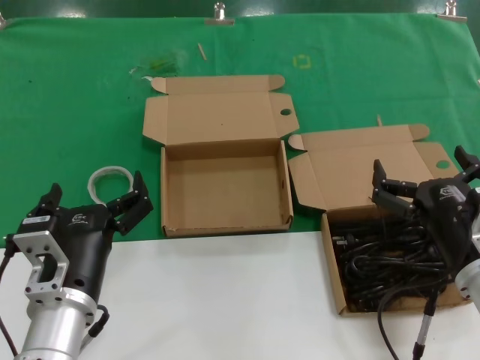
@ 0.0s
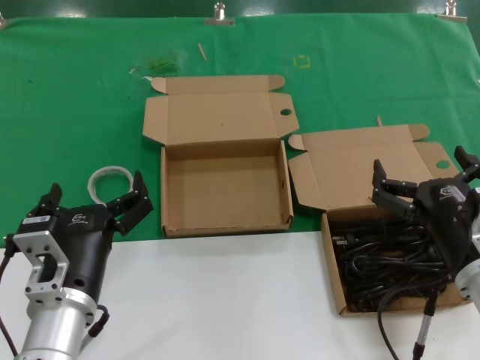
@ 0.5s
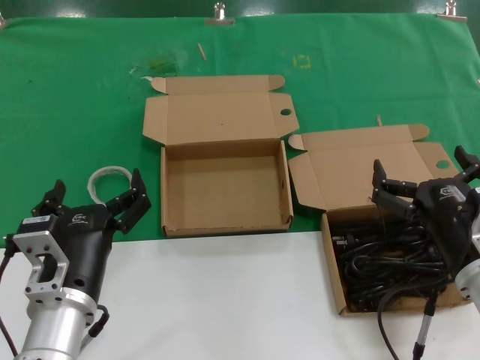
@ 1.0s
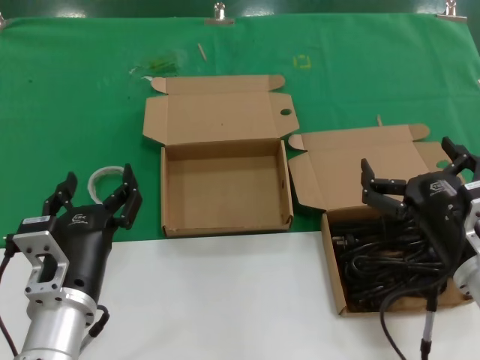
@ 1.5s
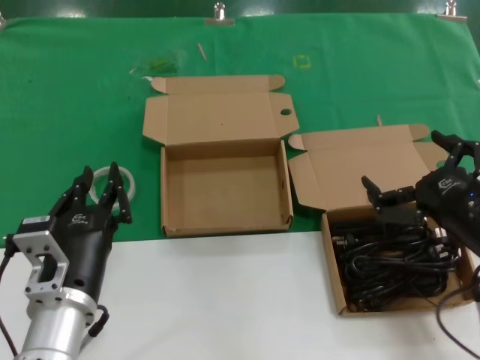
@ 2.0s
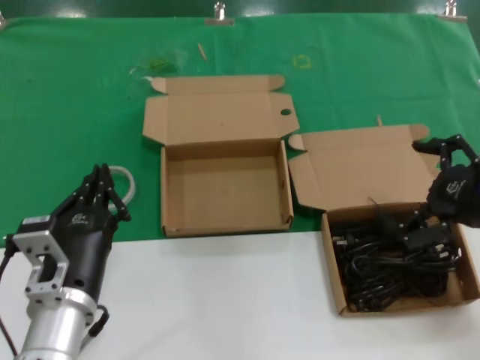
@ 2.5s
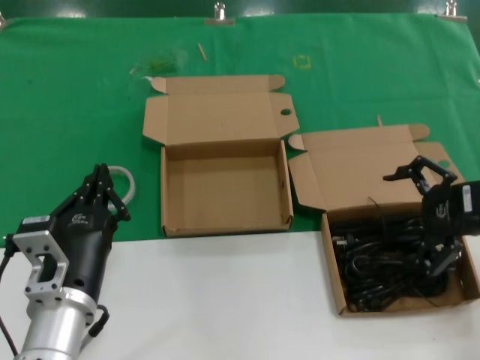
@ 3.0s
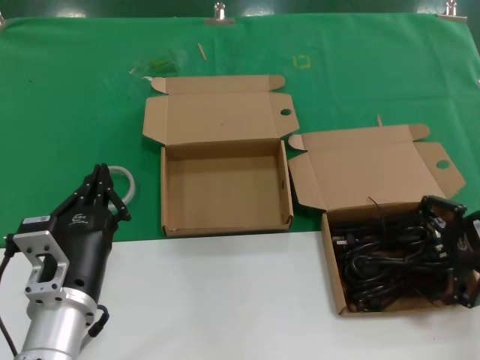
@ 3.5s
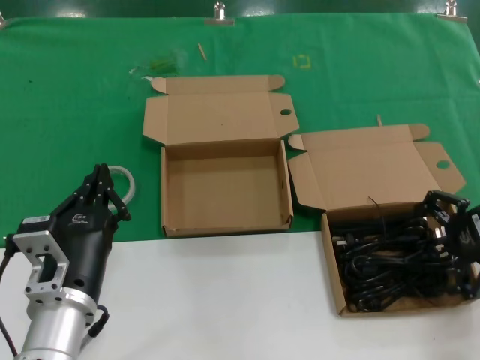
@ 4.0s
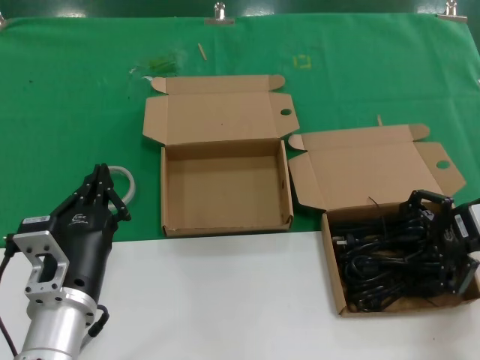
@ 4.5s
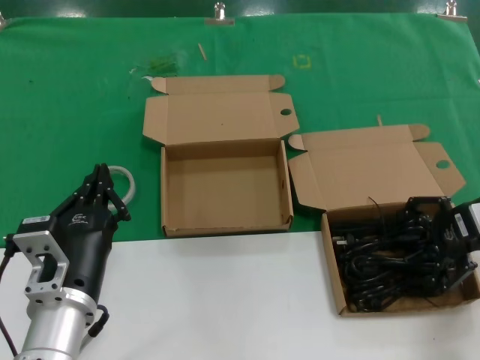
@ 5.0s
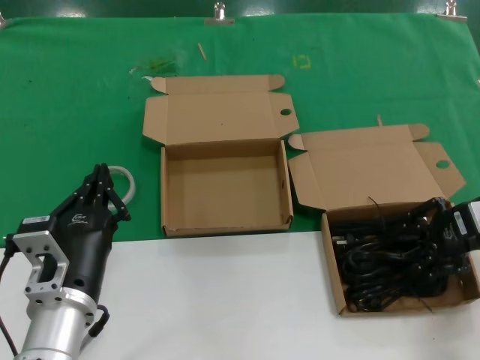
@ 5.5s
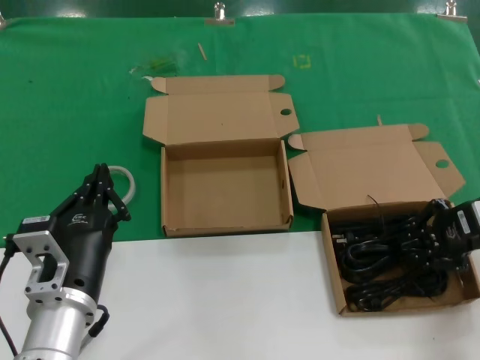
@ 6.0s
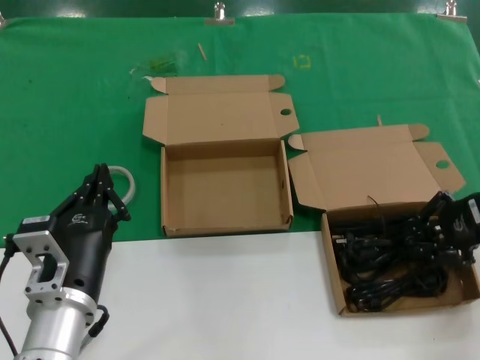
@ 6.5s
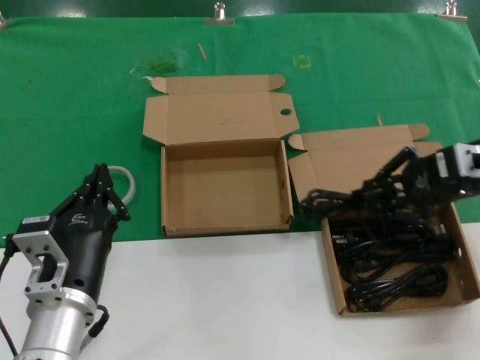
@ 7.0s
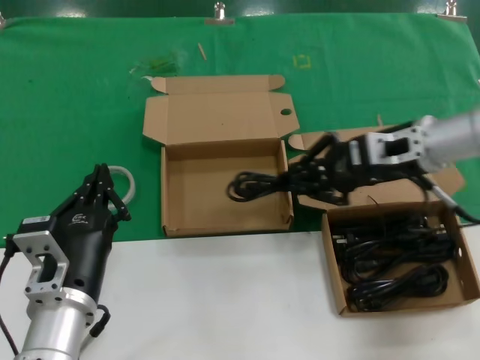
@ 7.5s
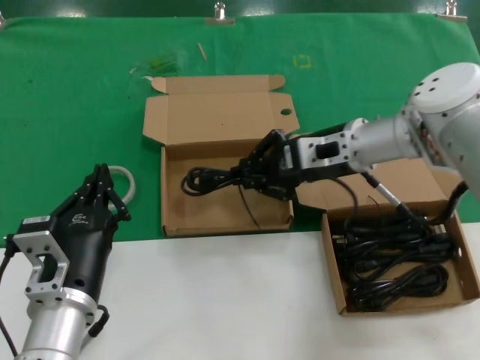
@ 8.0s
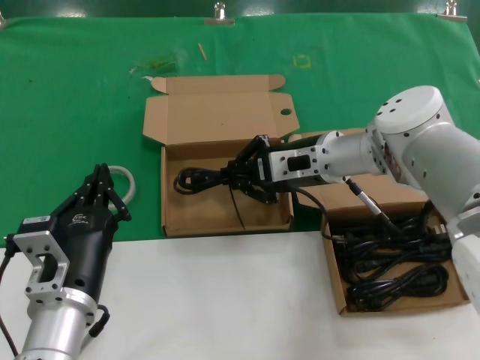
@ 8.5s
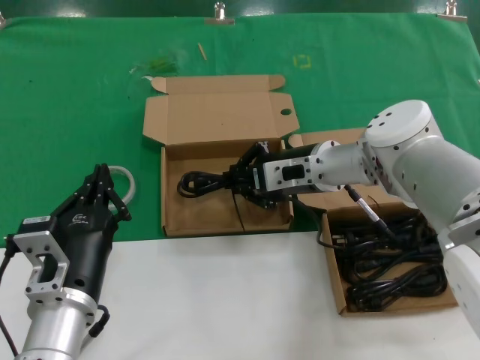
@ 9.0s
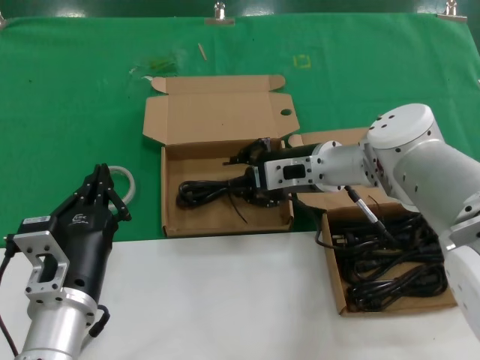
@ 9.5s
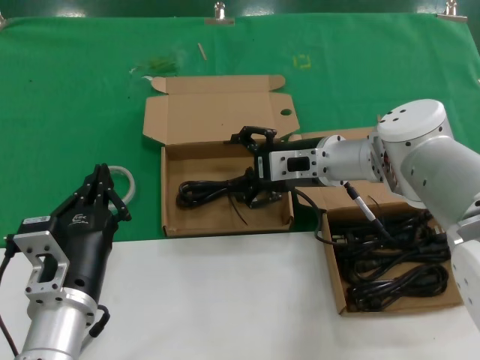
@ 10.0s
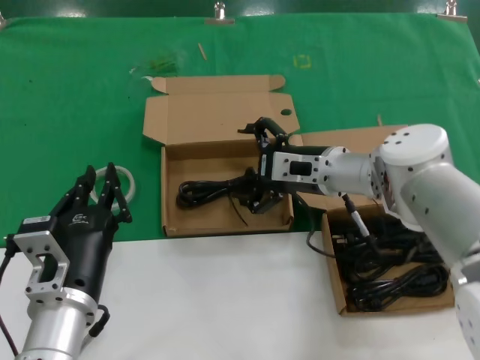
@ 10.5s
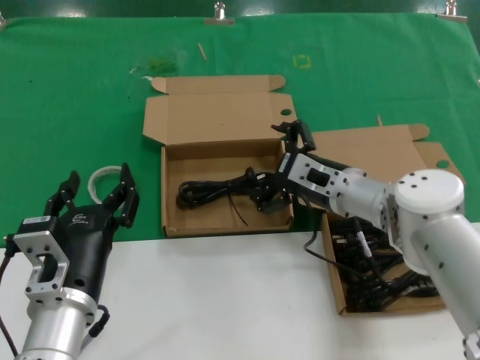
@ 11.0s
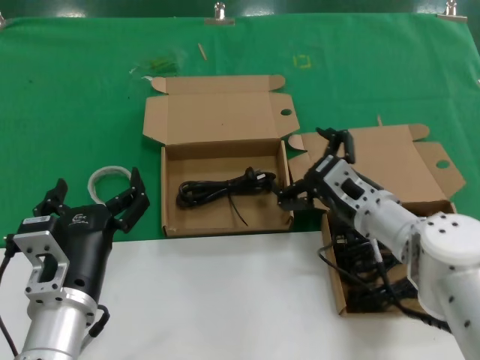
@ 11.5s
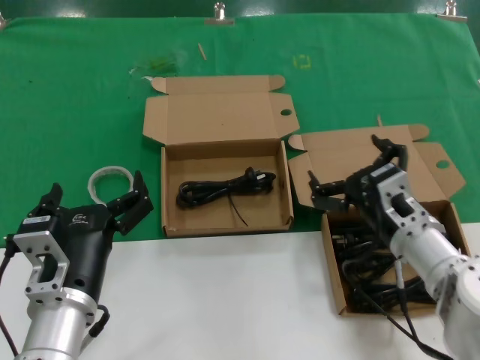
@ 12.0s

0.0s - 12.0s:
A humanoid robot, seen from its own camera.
Task of the whole recording: take the parts from the box containing them and put them into an empty box.
Step, 0.0s - 6.0s: Grasp the data cable.
Step, 6.5s - 9.0s: Place the data cable in the another box.
0.0s - 2.0s: The right hand moves approximately 5 cm.
2.0s - 4.0s: The right hand is displaced forward and to the right by about 15 cm.
4.0s - 6.0s: There are only small adjustments of the hands.
6.0s - 8.0s: The right hand shifts roughly 20 cm to the left and forward.
8.0s - 10.0s: The right hand shifts by approximately 5 cm.
10.0s - 12.0s: The right hand travels backward, downward and to the right by approximately 15 cm.

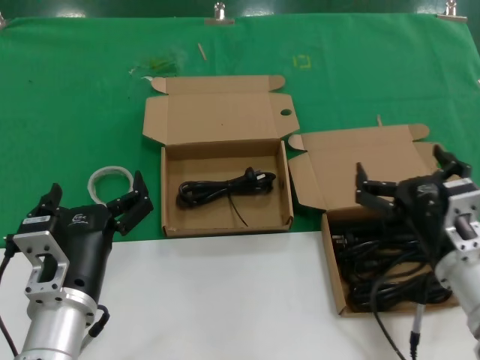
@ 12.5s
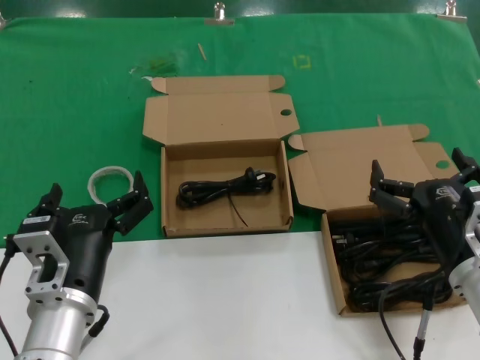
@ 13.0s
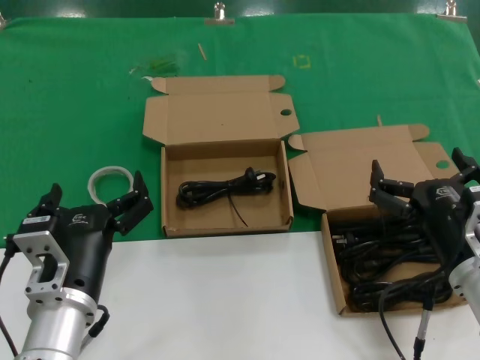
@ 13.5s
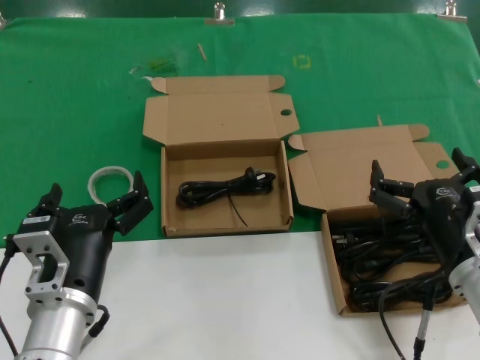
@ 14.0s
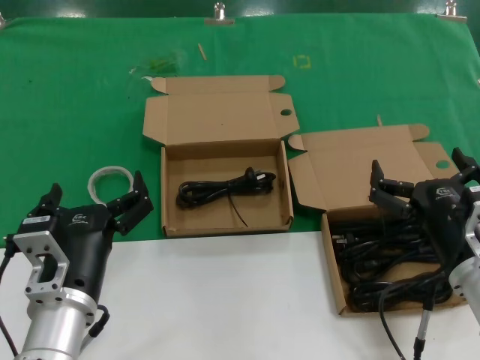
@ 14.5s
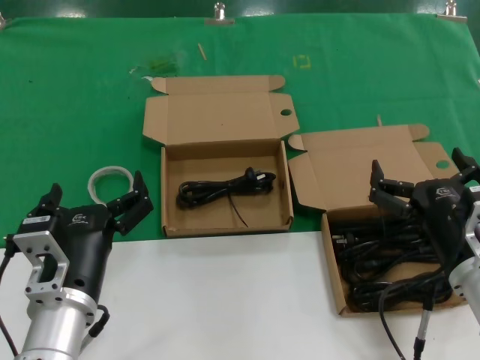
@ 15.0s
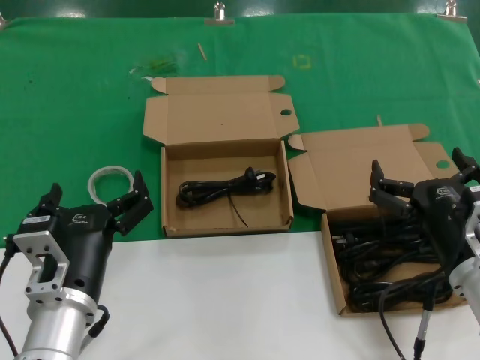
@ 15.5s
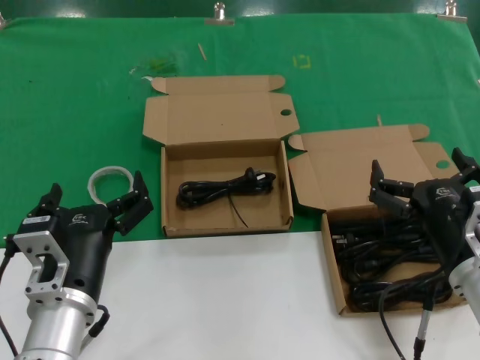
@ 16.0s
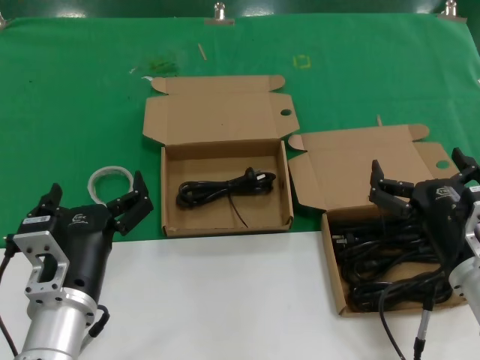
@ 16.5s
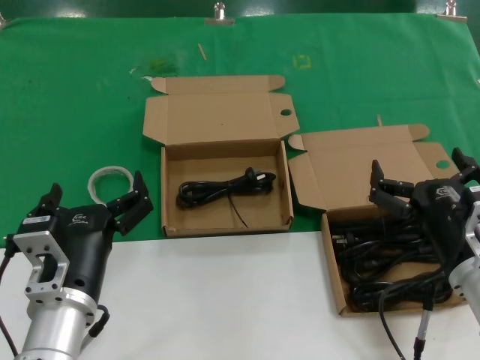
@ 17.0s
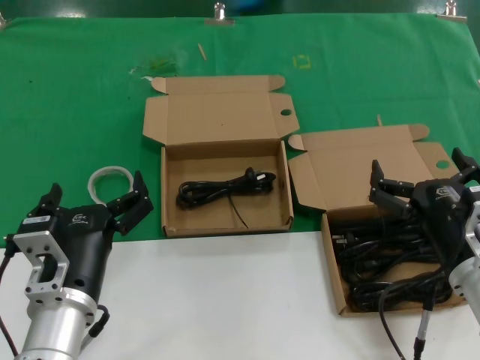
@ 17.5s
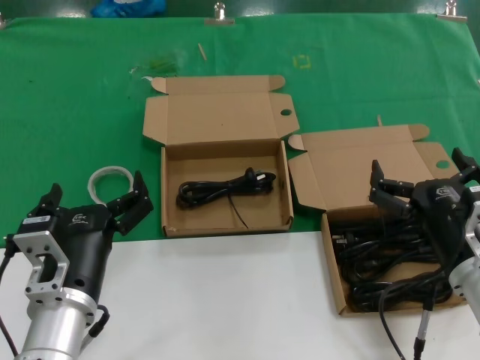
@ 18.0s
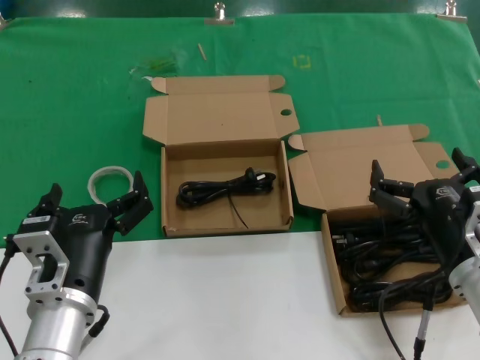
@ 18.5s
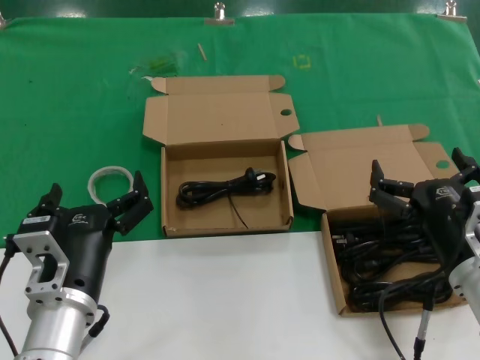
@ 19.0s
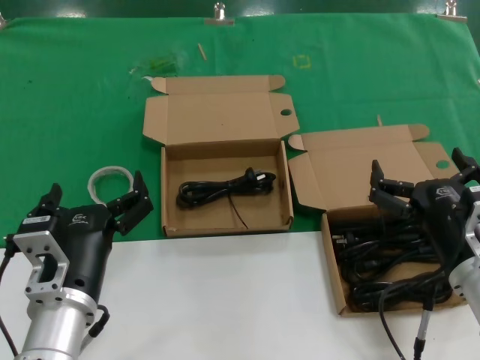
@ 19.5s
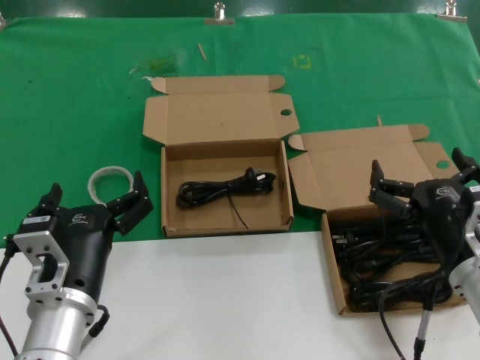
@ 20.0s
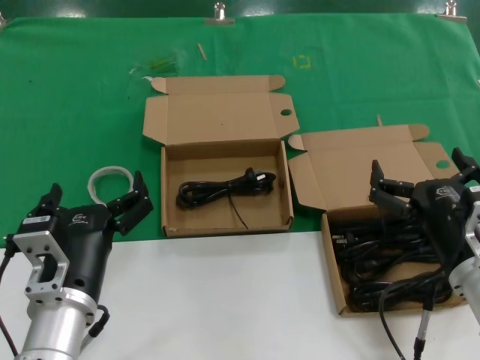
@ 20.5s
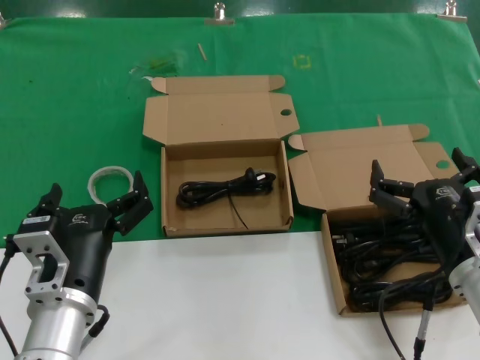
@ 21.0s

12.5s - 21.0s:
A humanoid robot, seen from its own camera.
Task of the whole recording: take the parts from the box containing them and put them into an empty box.
12.5s - 14.5s: The hands make only small movements.
14.5s - 21.0s: Both hands stay put.

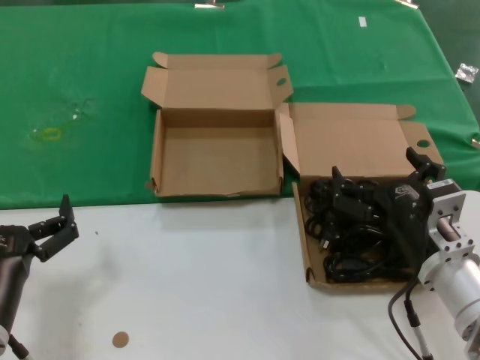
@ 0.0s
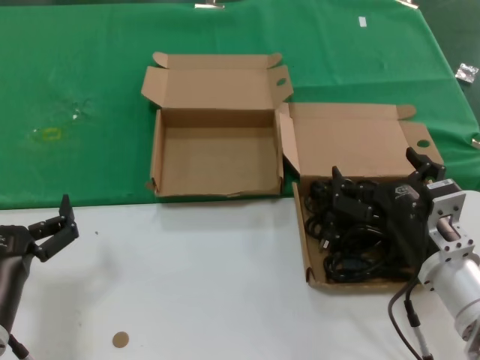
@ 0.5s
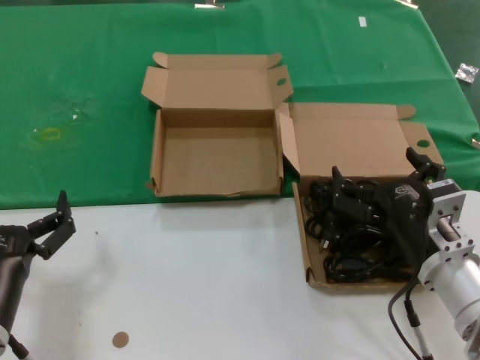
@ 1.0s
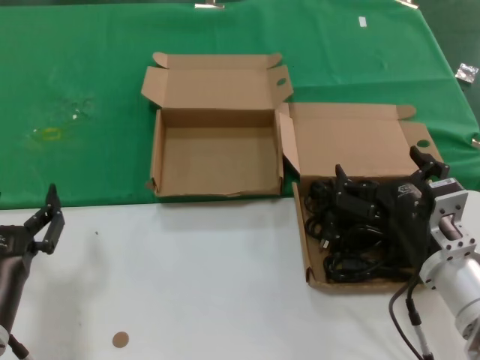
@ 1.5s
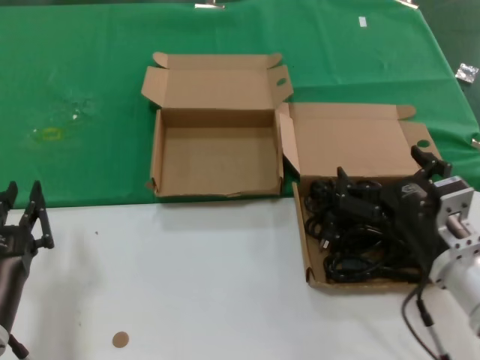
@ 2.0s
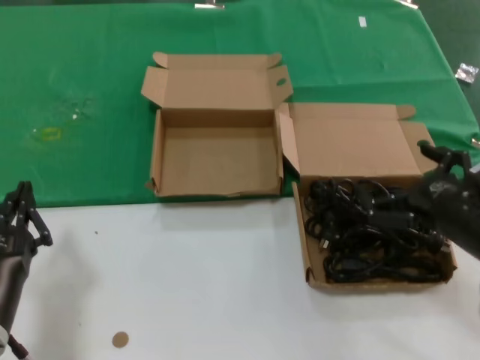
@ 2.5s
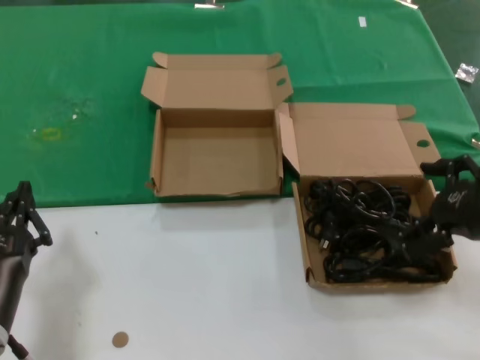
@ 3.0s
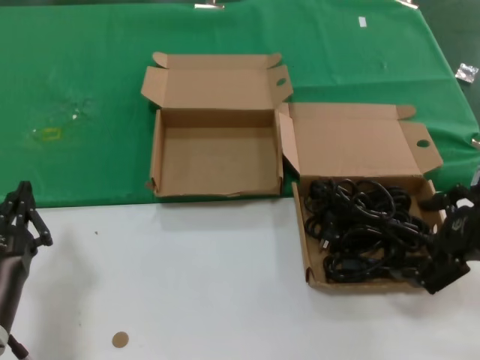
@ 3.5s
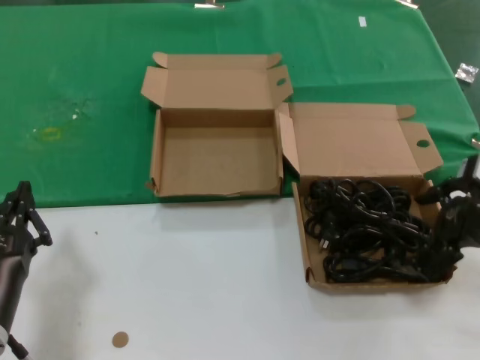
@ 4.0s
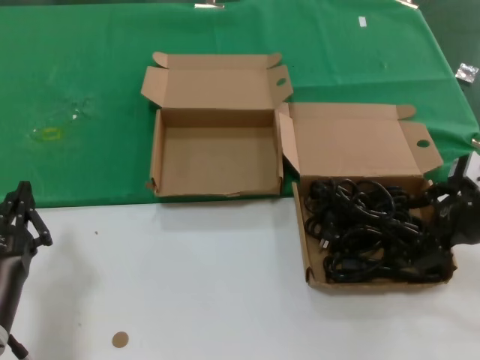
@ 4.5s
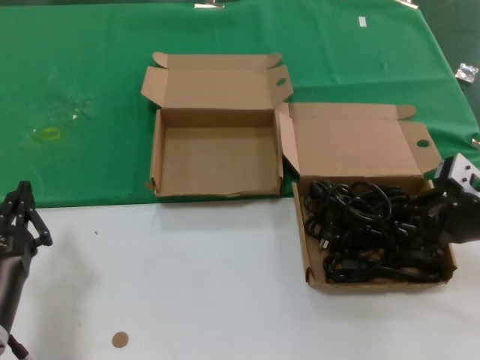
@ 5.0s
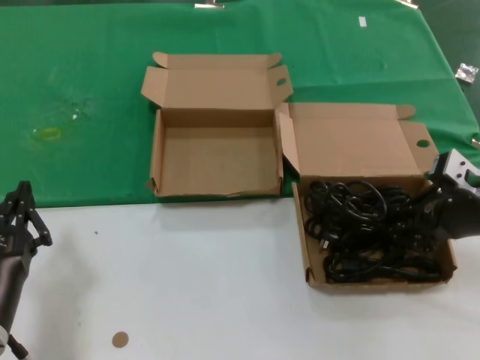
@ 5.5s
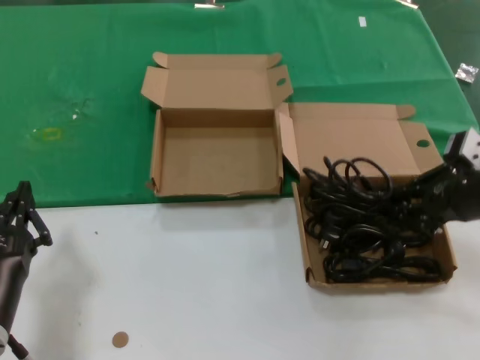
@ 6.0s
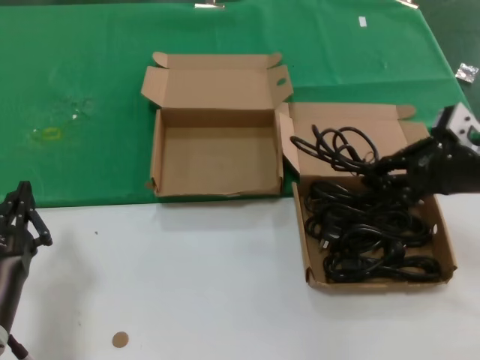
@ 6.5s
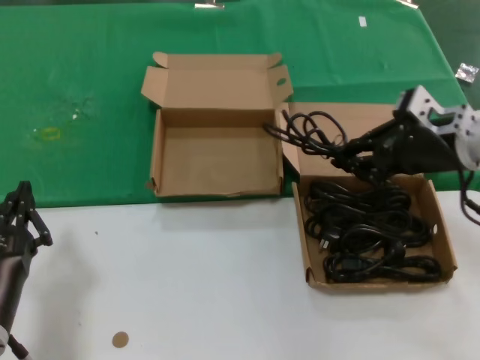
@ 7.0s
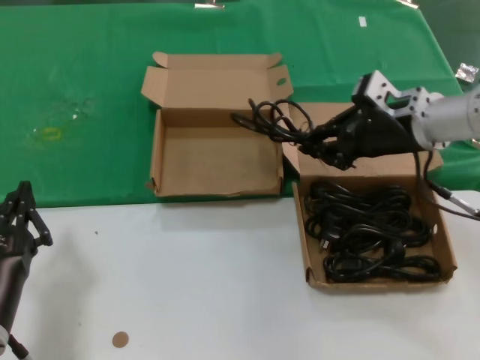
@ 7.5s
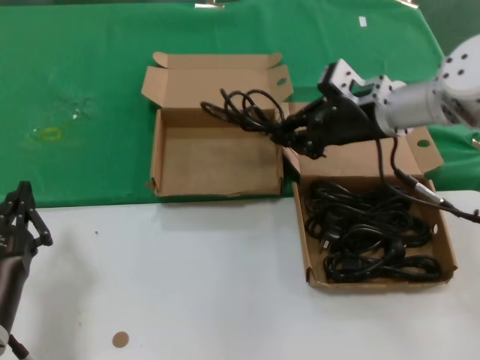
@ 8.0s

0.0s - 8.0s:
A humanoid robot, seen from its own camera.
Task of the whole recording: take the parts from the box containing them and put them into an empty box.
Step, 0.0s - 5.0s: Grasp the data cable.
0.0s - 2.0s: Neither hand changes place.
2.0s - 4.0s: The right hand is displaced upward and to the right by approximately 15 cm.
4.0s - 6.0s: The hands make only small movements.
6.0s - 8.0s: The right hand heads forward and to the left, covering some 20 cm.
